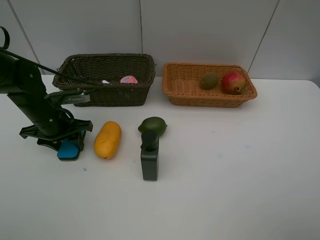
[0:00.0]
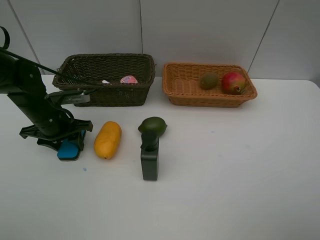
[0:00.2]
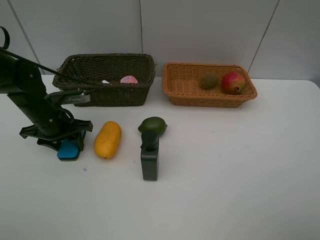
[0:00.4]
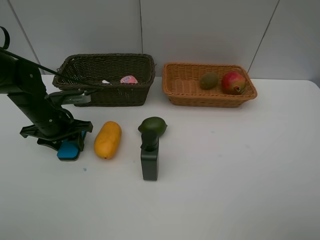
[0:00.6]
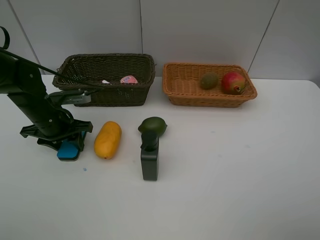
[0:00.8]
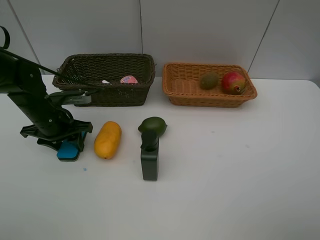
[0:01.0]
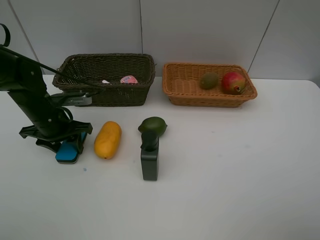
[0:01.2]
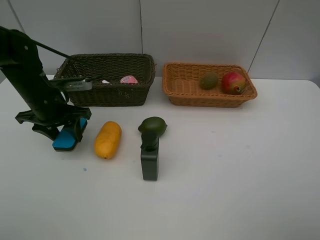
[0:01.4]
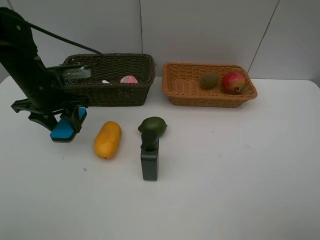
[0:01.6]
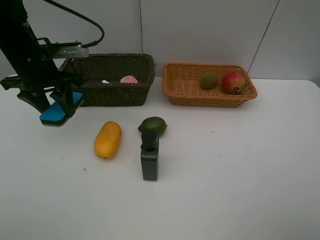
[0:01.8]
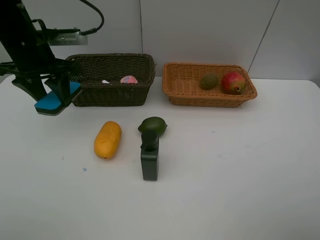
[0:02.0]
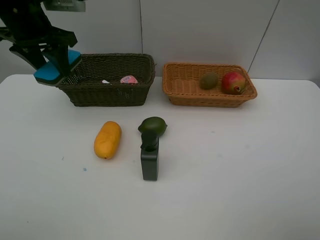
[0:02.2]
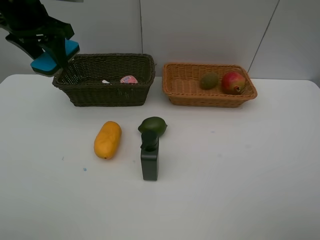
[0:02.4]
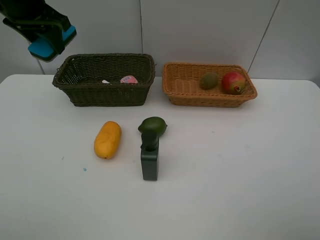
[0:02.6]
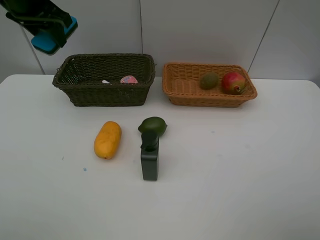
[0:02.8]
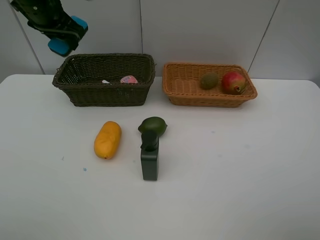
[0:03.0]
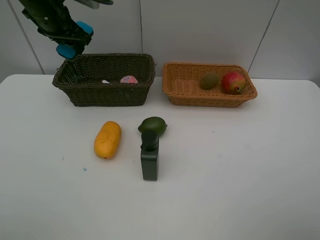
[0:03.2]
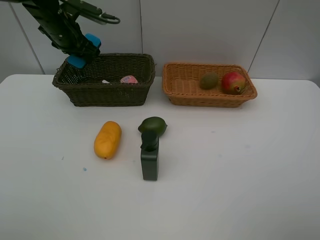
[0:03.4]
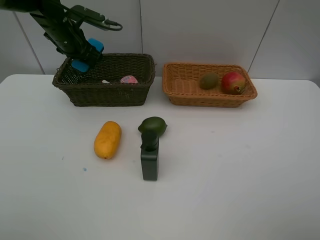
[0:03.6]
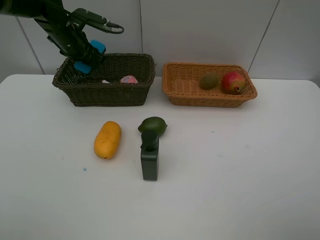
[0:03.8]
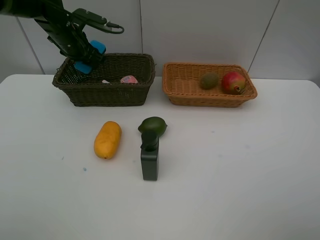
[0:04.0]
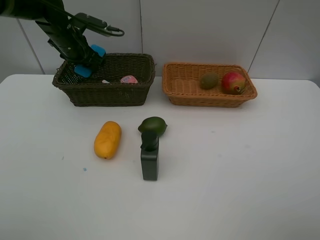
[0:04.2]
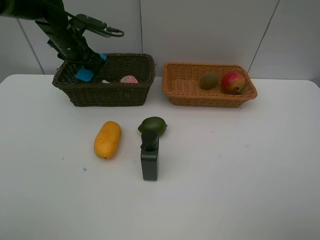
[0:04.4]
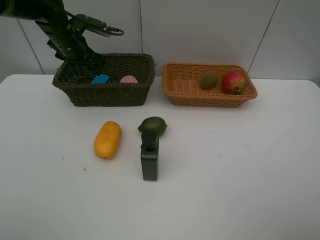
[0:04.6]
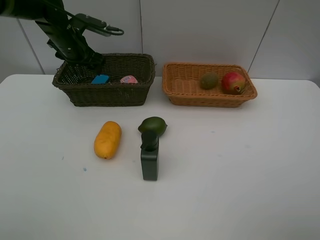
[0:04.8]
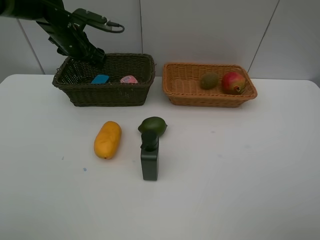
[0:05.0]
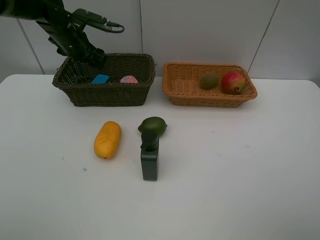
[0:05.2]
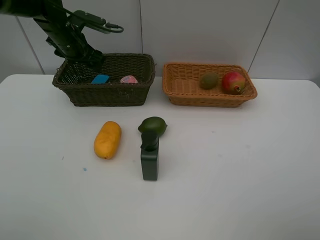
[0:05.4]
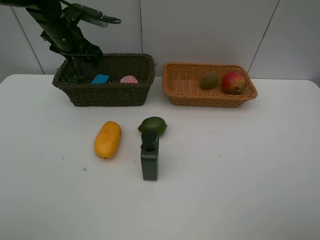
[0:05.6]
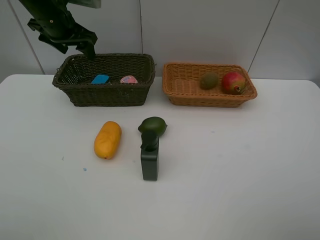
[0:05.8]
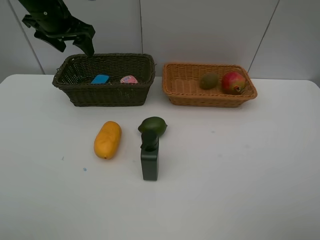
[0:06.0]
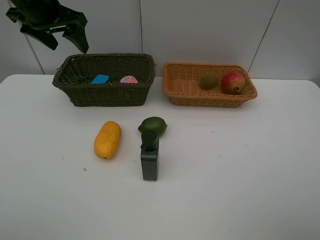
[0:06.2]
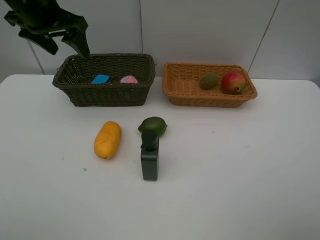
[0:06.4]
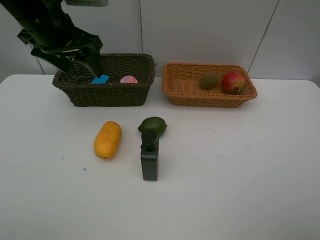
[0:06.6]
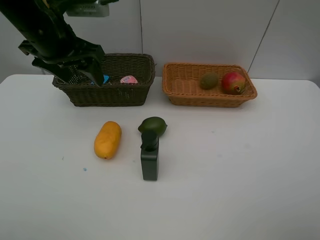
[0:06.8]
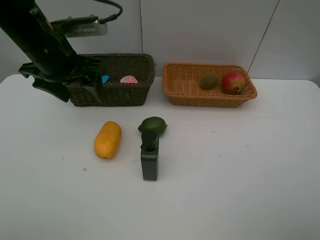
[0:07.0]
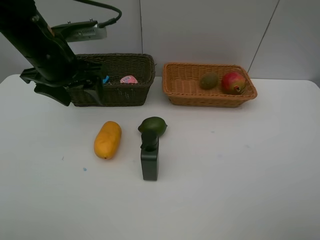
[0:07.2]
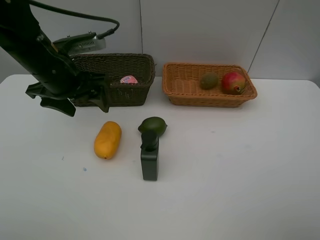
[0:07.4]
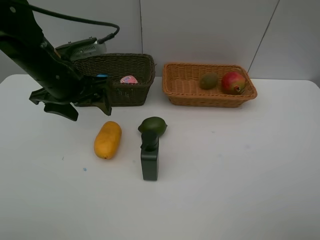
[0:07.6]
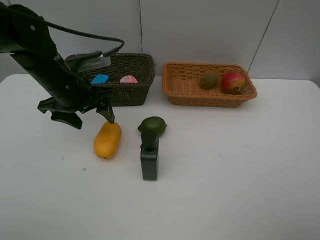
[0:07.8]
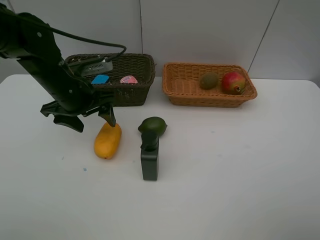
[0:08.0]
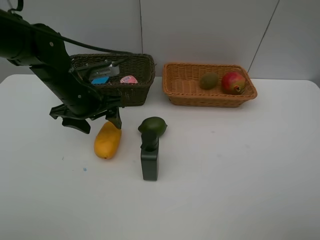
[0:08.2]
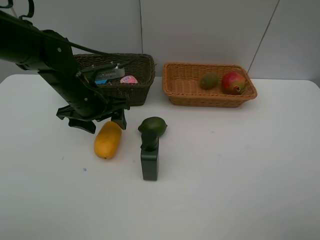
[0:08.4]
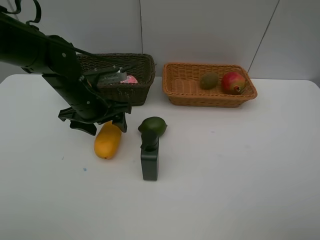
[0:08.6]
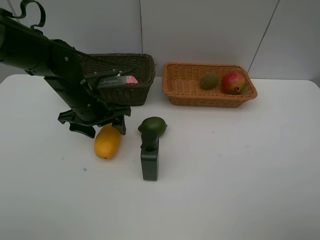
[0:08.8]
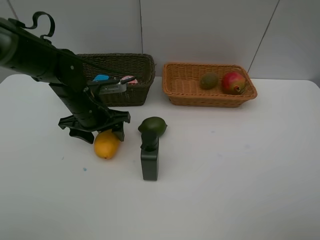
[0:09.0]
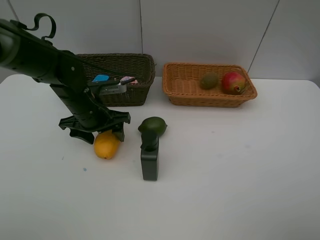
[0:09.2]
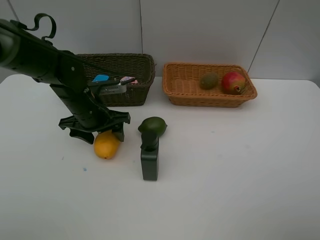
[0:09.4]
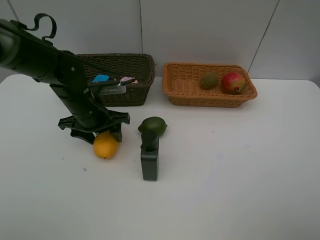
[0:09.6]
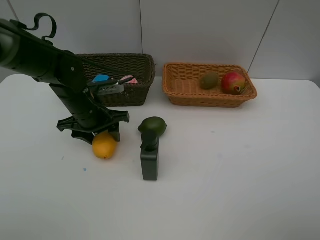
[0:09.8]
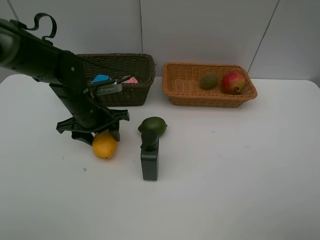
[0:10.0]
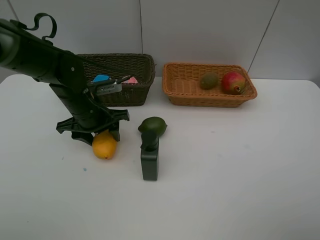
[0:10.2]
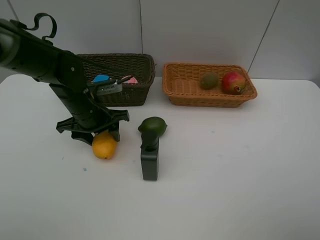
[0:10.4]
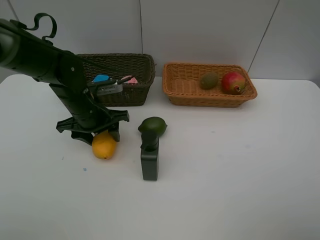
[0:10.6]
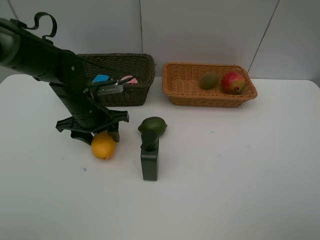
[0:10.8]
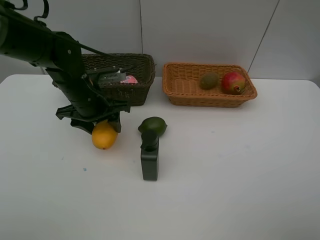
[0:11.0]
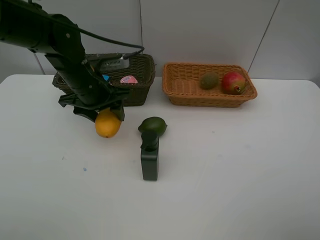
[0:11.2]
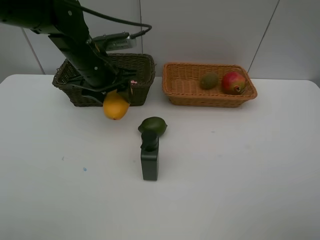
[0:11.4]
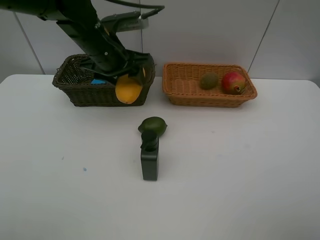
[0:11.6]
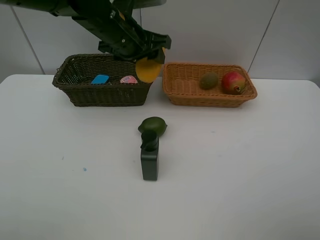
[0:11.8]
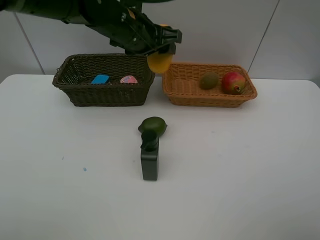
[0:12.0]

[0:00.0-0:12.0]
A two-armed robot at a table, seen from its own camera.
Task of the whole recording: Place multiple objects separately in different baskets.
Step, 0:01.6 to 0:04.8: Place the blackboard eraser in the dark basket with left gripper.
Step, 0:05.0 to 0:11.0: Pick up mango with left gripper.
0:00.0 to 0:01.6: The left gripper is displaced upward by some 10 cm.
0:01.6 to 0:03.0: The left gripper is displaced upward and forward by approximately 15 cm.
0:03.0 to 0:04.4: The left gripper travels downward by about 10 cm, and opens up.
0:04.4 to 0:06.0: The left gripper moves upward and backward, approximately 10 cm.
0:06.0 to 0:07.6: The left gripper heads backward and downward, covering roughly 15 cm.
0:07.6 to 0:09.0: The left gripper goes some 10 cm downward.
0:09.0 to 0:10.4: The left gripper closes up.
0:10.4 to 0:12.0: The left gripper heads upward, to the right and forward, covering some 20 cm.

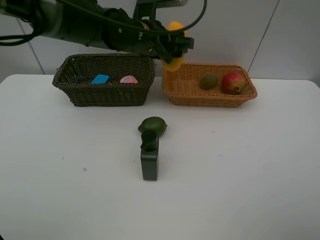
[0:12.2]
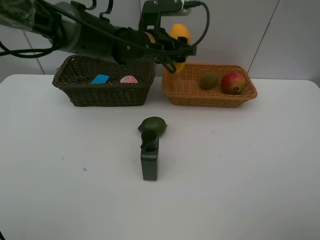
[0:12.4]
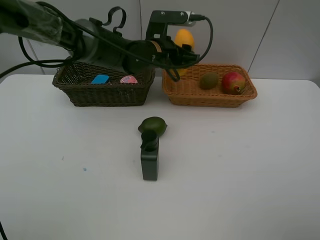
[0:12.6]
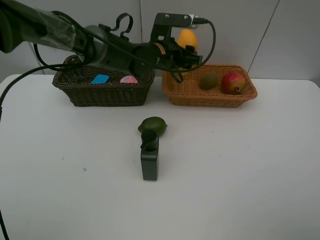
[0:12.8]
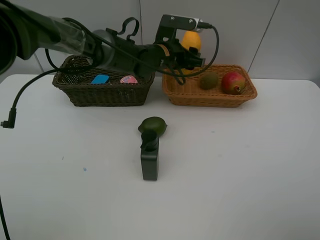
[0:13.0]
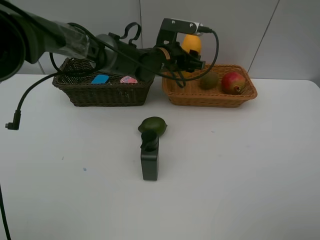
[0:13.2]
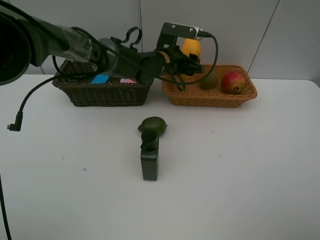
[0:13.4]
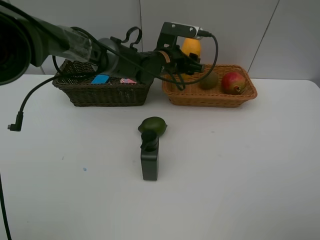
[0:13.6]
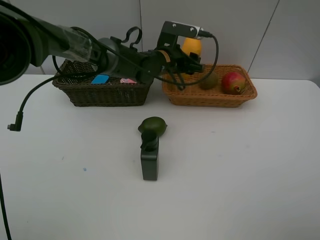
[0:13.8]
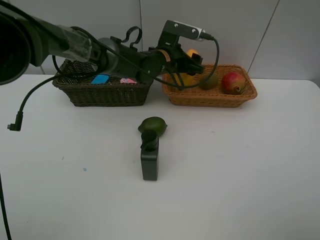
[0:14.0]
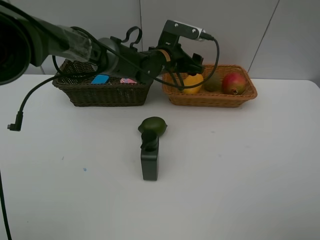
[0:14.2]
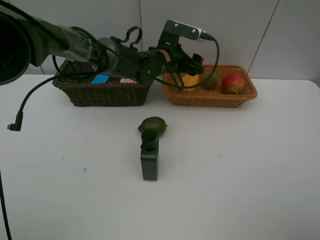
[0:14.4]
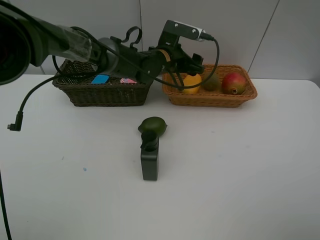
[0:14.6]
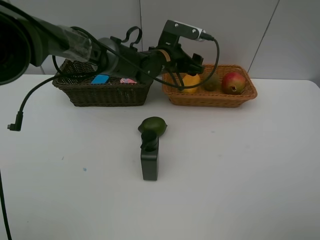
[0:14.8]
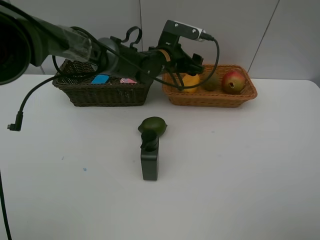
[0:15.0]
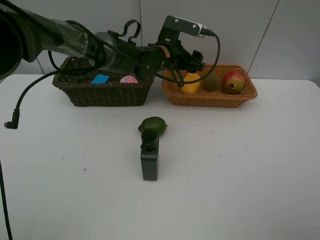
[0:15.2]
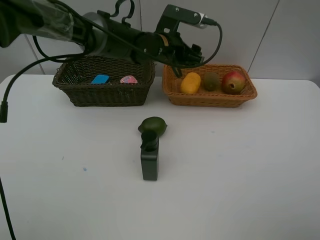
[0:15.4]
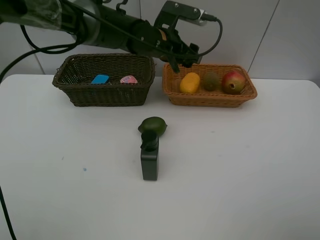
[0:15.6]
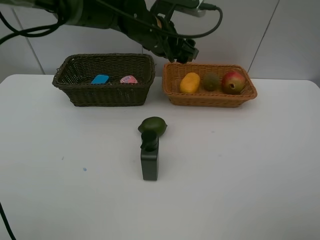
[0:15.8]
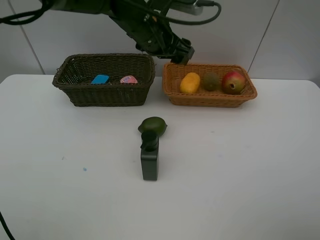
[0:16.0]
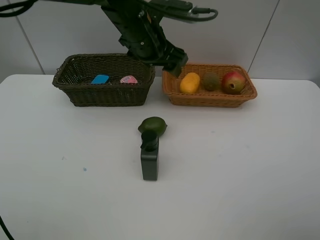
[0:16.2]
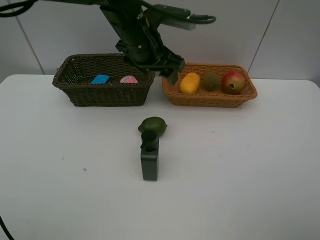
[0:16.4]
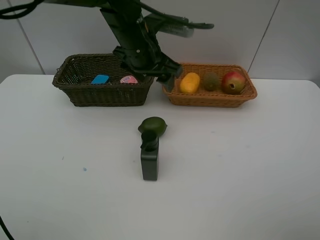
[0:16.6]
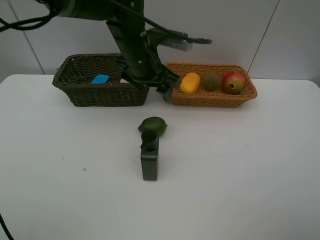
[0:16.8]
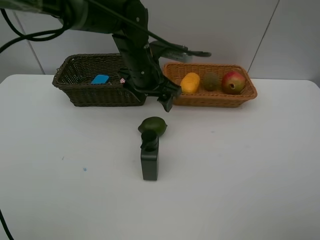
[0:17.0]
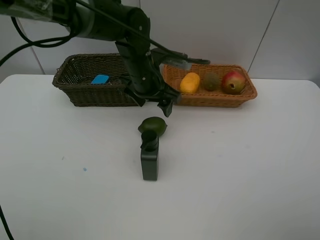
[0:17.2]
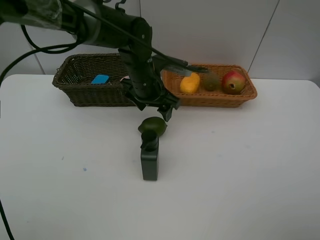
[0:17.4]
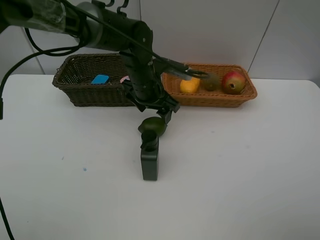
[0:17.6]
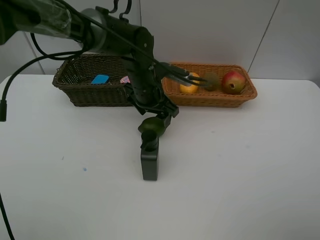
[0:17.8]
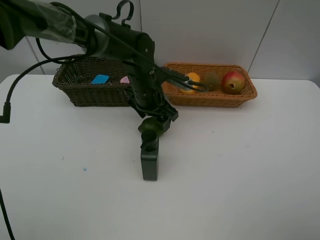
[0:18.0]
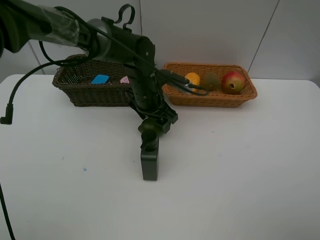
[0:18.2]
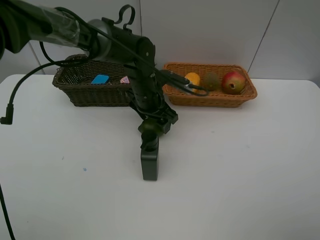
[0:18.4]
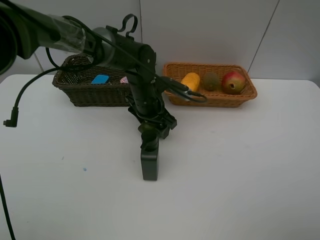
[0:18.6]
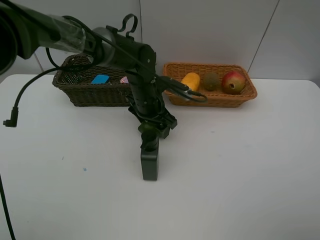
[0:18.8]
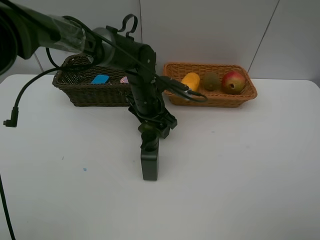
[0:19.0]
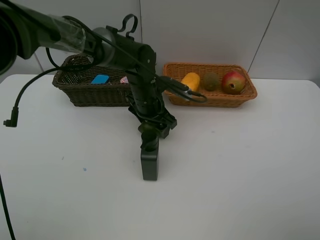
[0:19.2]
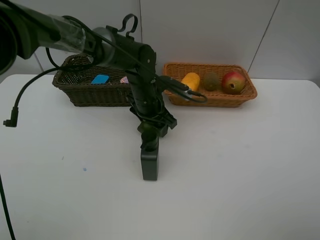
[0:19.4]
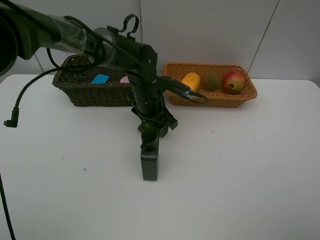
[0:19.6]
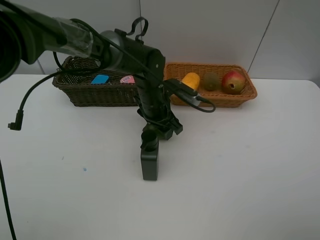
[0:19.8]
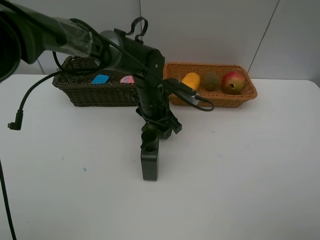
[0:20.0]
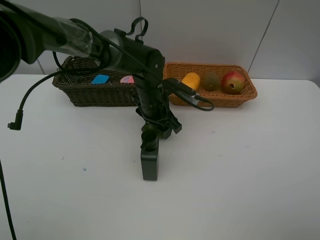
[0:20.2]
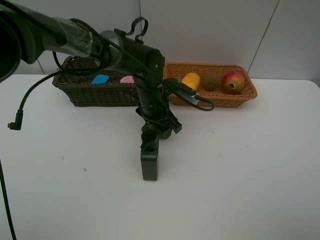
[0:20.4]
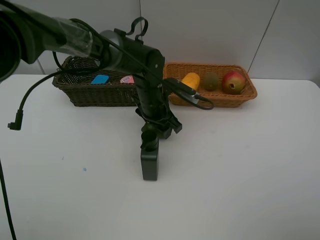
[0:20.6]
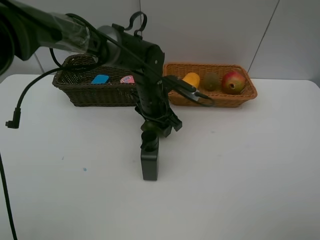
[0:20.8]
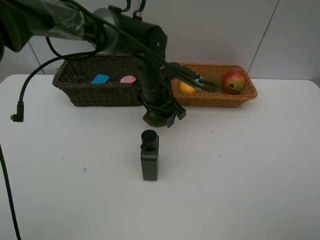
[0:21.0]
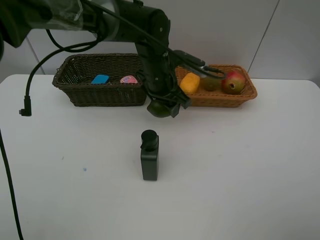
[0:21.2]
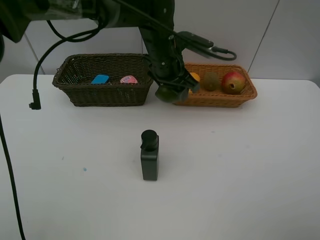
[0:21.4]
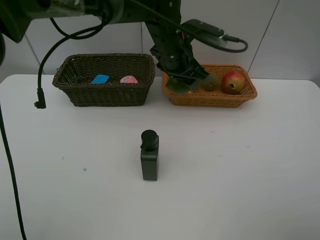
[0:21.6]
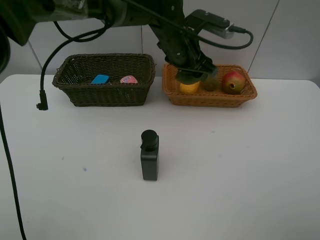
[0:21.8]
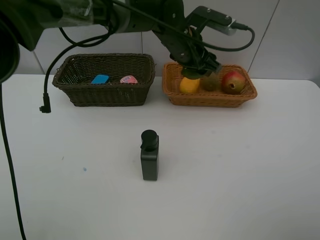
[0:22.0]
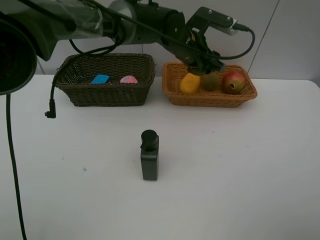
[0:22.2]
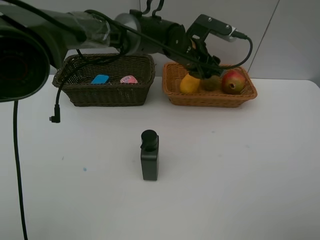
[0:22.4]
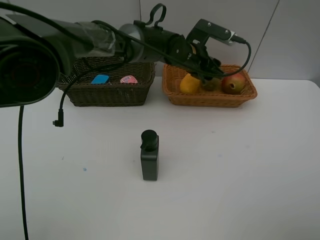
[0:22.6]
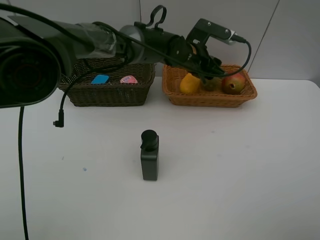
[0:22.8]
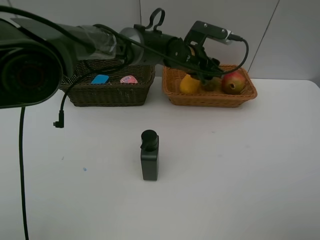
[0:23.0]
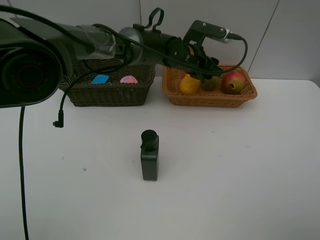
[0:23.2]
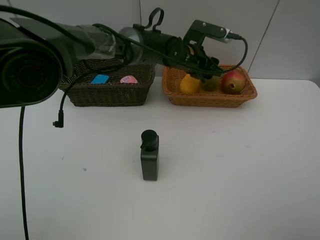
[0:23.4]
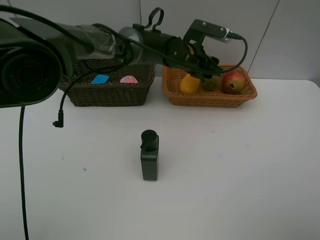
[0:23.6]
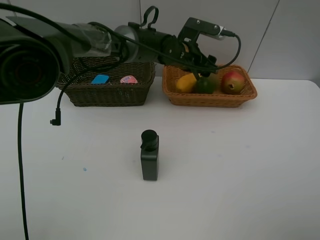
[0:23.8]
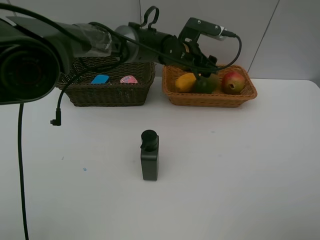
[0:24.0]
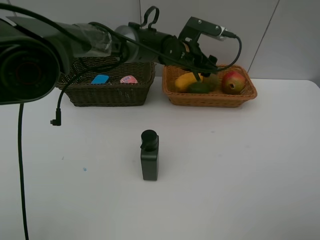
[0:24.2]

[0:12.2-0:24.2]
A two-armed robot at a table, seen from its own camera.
Task of the whole recording: Place multiple objects separately in different baskets.
Step, 0:12.2 to 0:14.2: Place the mango in the light basket with left gripper.
Step, 0:14.4 to 0:21.0: Pick up the lime with left gripper.
Step, 0:21.2 to 0:23.8: Place the lime in the light basket with left gripper.
0:12.2 to 0:13.8: The left gripper is displaced downward by approximately 5 cm.
0:13.8 to 0:15.2: The left gripper opens its fingers.
0:15.2 to 0:16.6: The left gripper heads backward and upward, covering approximately 10 cm.
0:16.6 to 0:18.2: The left gripper goes approximately 10 cm downward.
0:18.2 to 0:19.8: The left gripper closes.
0:19.8 to 0:21.2: The left gripper goes roughly 5 cm upward.
0:21.2 to 0:22.6: The left gripper goes some 5 cm to the right.
0:22.6 to 0:24.2: The left gripper opens its fingers.
